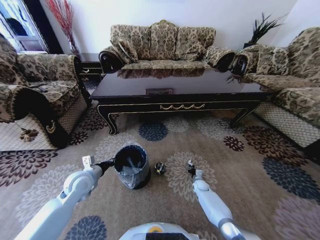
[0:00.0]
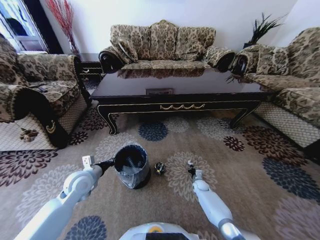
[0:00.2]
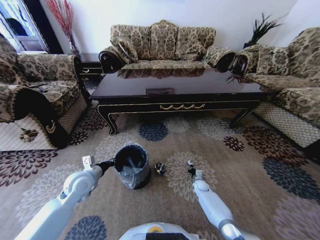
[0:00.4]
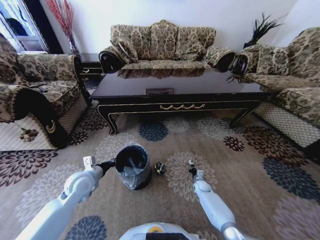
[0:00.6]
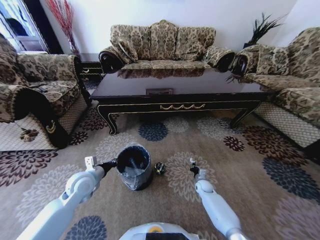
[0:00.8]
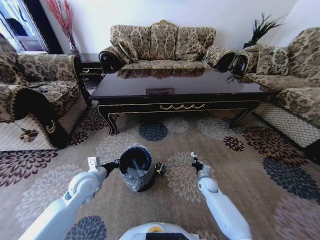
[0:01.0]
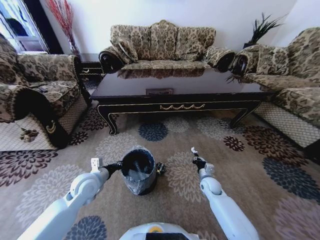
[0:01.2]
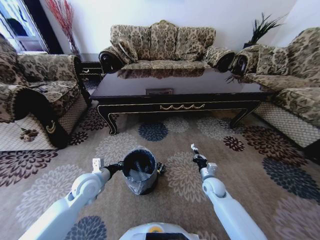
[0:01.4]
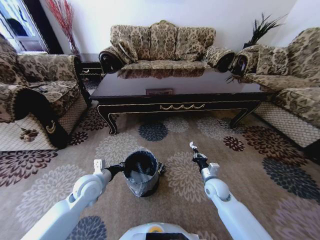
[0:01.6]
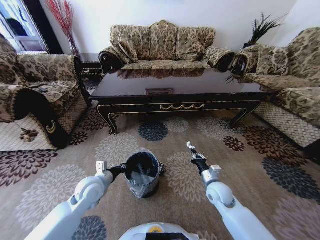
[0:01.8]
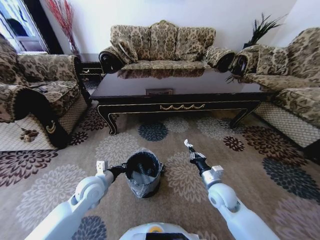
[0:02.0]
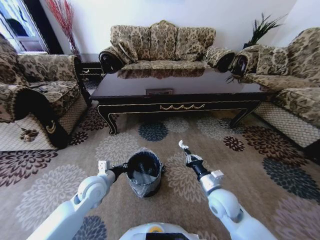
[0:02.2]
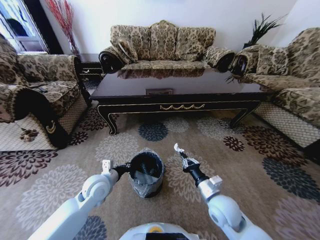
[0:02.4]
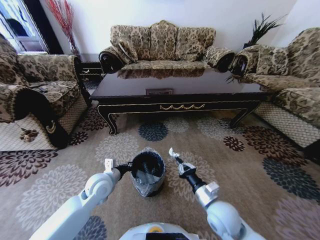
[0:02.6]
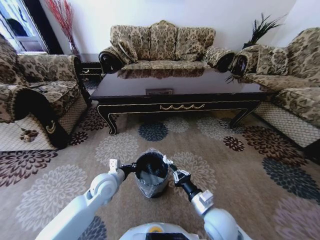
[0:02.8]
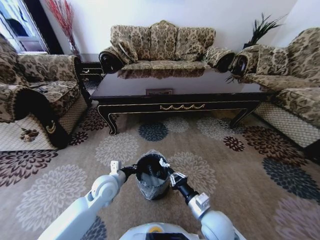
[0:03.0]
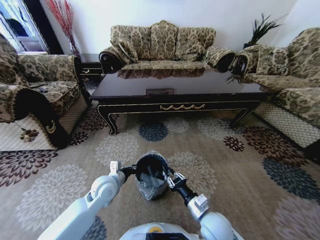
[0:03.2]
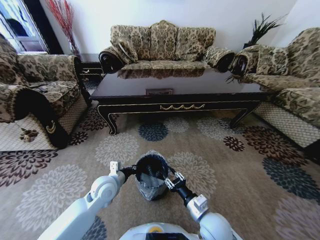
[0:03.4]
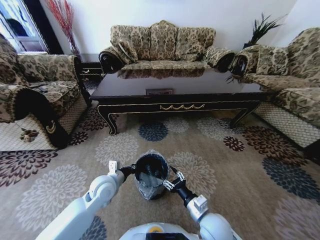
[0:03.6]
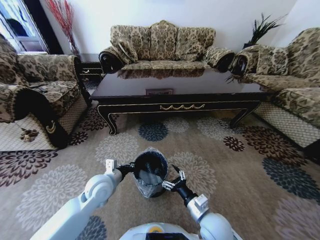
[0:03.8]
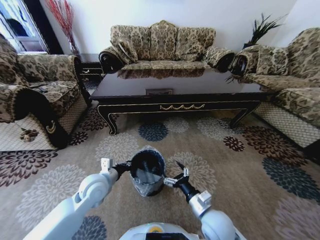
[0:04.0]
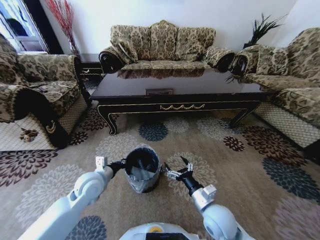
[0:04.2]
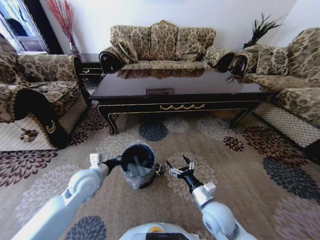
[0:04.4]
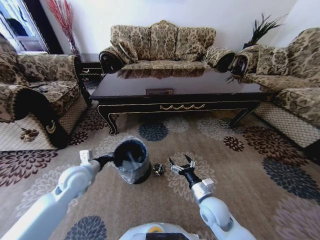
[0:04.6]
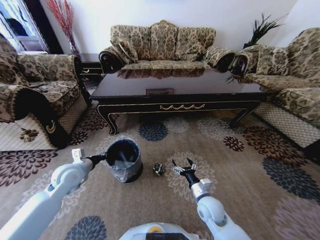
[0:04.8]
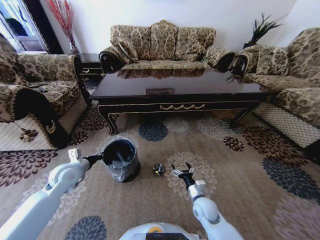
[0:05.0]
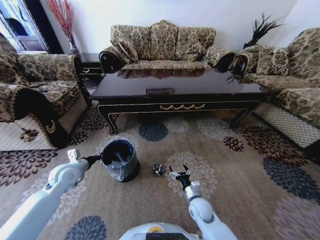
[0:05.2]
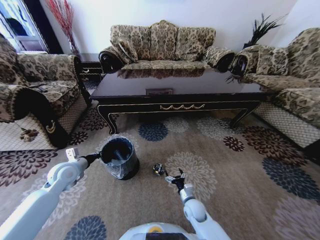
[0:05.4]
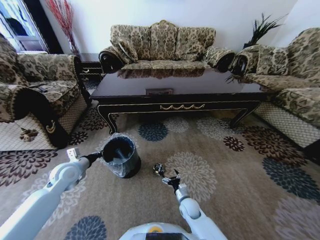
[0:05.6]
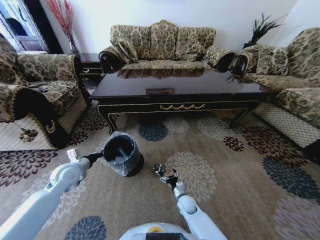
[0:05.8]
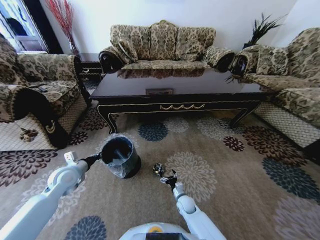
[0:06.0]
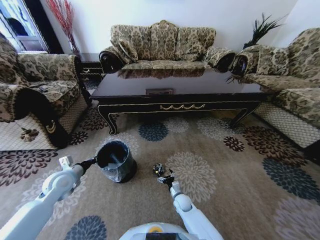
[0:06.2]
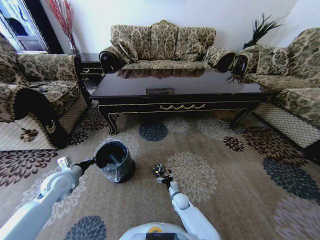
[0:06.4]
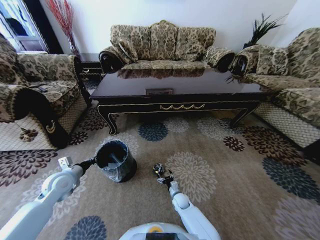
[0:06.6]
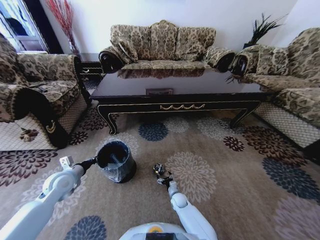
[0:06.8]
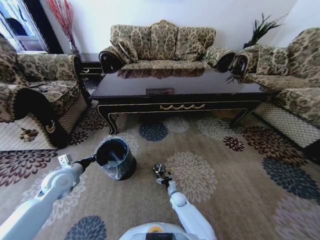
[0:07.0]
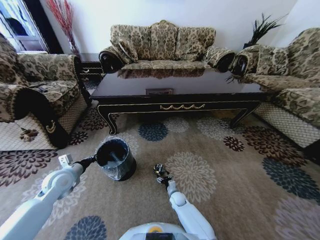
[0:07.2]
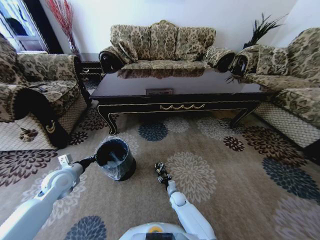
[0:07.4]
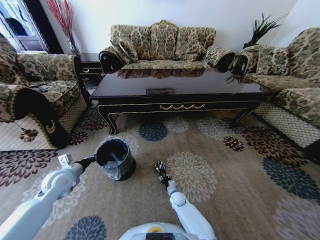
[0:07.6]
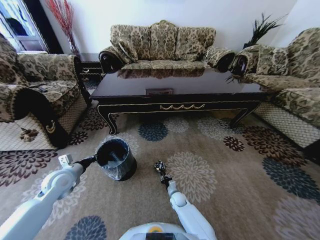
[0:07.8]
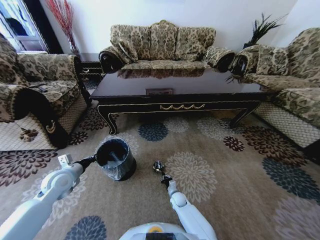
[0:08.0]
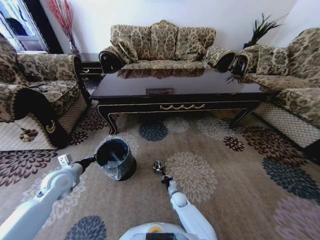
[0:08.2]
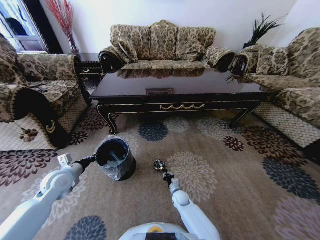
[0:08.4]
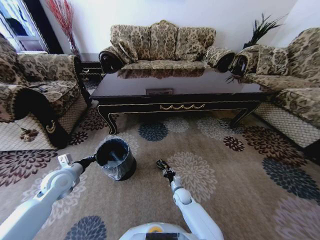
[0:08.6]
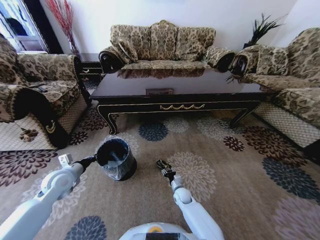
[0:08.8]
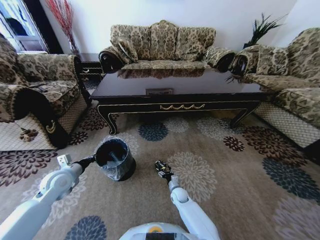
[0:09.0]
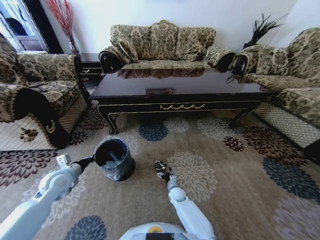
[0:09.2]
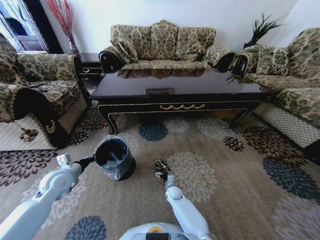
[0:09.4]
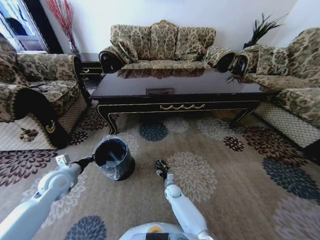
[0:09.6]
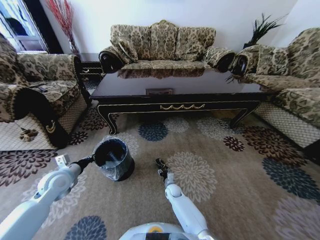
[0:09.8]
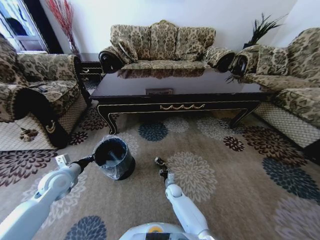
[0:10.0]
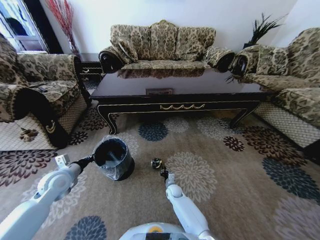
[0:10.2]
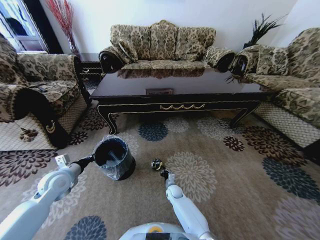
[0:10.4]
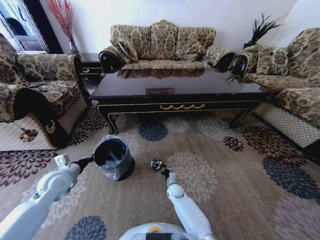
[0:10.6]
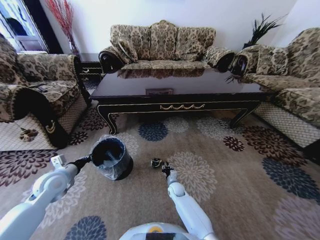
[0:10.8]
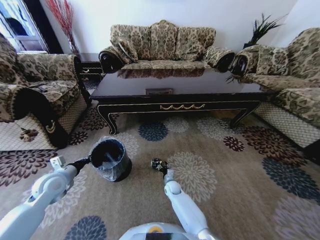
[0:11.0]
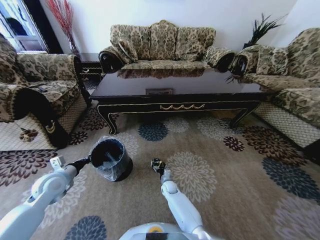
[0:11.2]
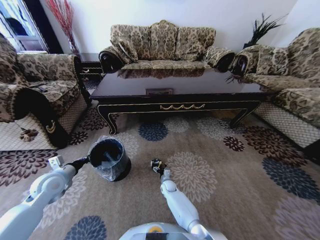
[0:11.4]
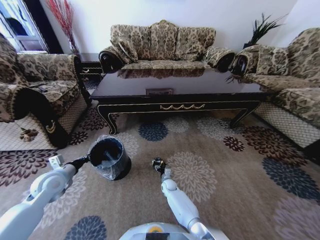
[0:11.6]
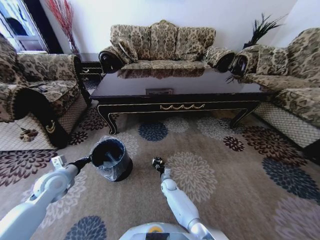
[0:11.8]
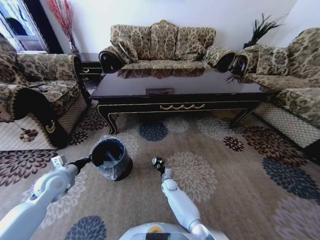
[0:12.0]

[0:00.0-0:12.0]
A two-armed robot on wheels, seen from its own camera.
Task of the whole recording: Move to the front of the table and pick up the trash from the floor, then place it into the trash bin.
0:00.0 to 0:01.6: The right gripper heads upward and backward, covering roughly 20 cm.
0:01.6 to 0:03.0: The right gripper is displaced backward and to the left by roughly 15 cm. The left gripper is displaced to the right by about 5 cm.
0:03.0 to 0:04.4: The right gripper opens, while the left gripper travels to the left by roughly 5 cm.
0:04.4 to 0:06.0: The right gripper goes roughly 25 cm downward and forward. The left gripper travels to the left by some 10 cm.
0:06.0 to 0:07.6: The right gripper goes about 5 cm downward, and closes.
0:07.6 to 0:09.0: The right gripper closes, then reopens.
0:09.0 to 0:10.4: The right gripper closes its fingers.
0:10.4 to 0:12.0: The right gripper opens, then closes once more.

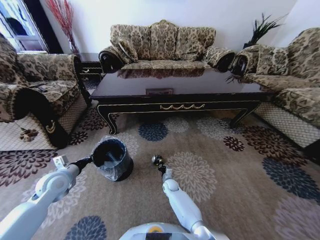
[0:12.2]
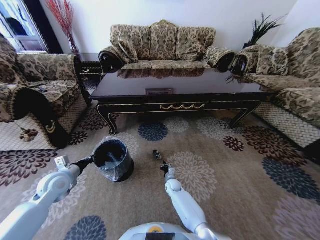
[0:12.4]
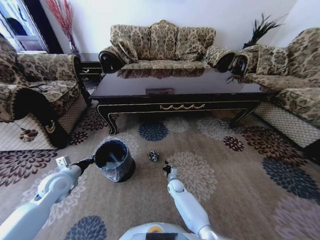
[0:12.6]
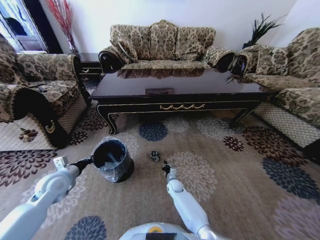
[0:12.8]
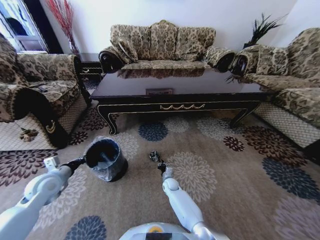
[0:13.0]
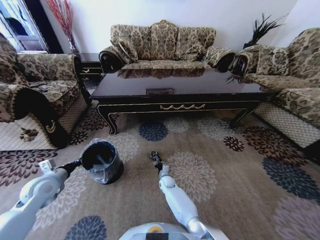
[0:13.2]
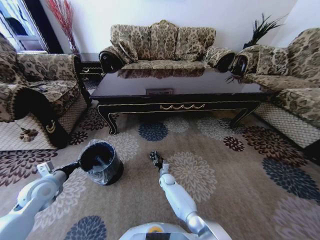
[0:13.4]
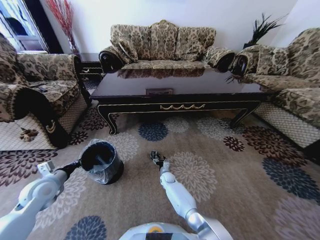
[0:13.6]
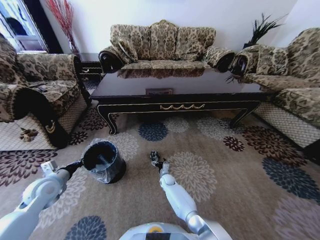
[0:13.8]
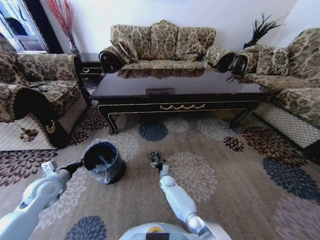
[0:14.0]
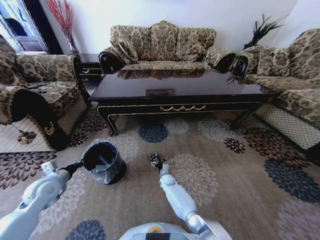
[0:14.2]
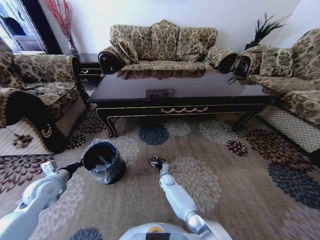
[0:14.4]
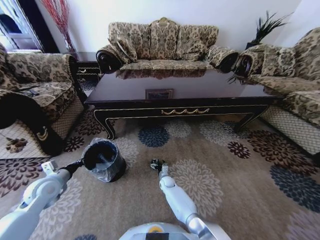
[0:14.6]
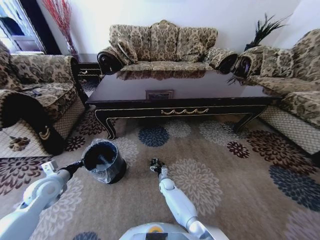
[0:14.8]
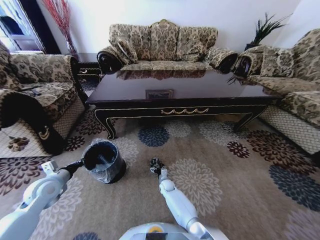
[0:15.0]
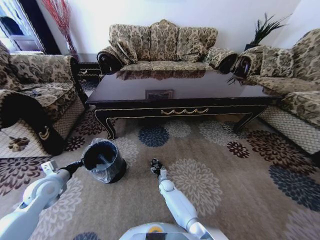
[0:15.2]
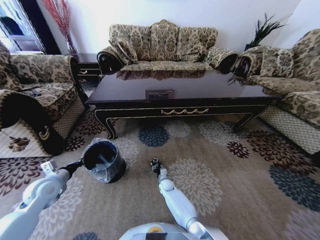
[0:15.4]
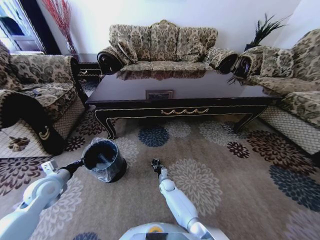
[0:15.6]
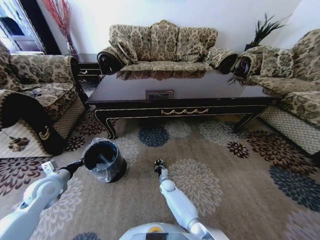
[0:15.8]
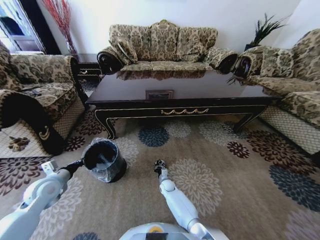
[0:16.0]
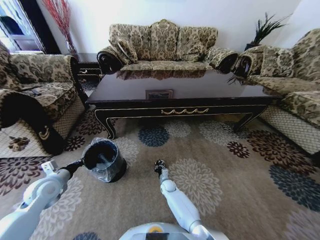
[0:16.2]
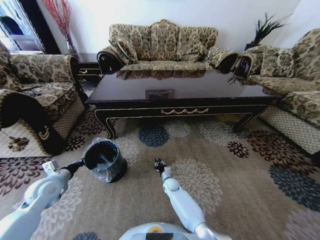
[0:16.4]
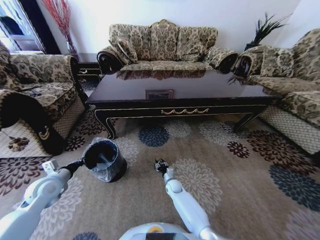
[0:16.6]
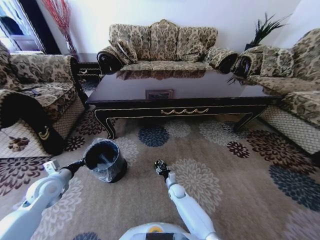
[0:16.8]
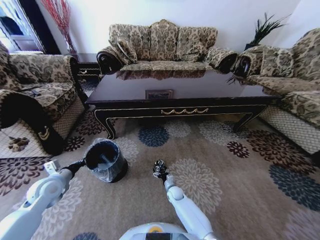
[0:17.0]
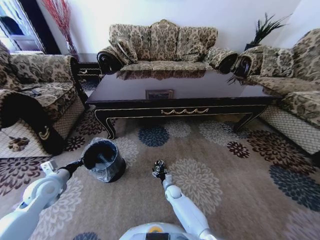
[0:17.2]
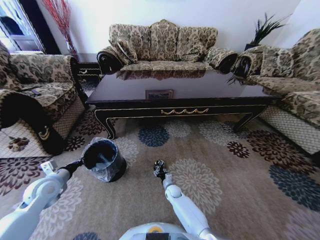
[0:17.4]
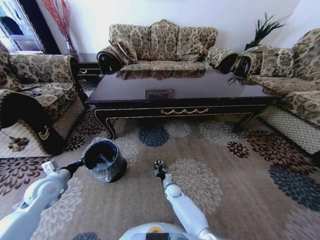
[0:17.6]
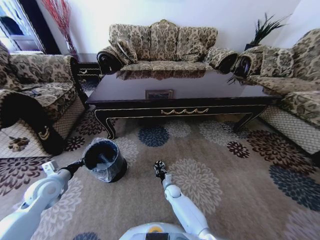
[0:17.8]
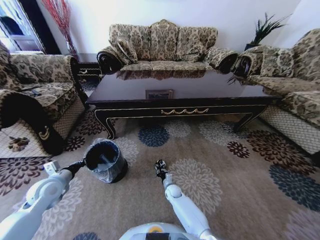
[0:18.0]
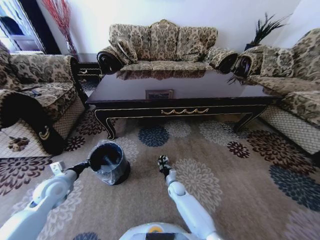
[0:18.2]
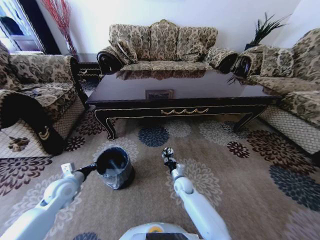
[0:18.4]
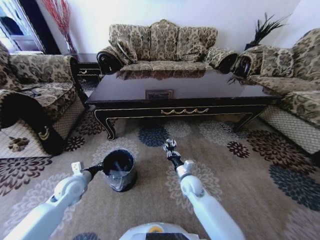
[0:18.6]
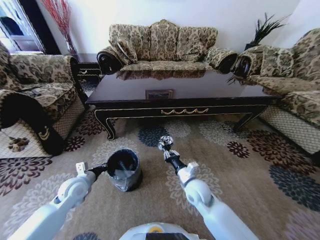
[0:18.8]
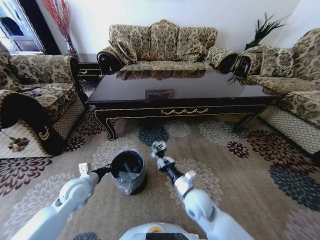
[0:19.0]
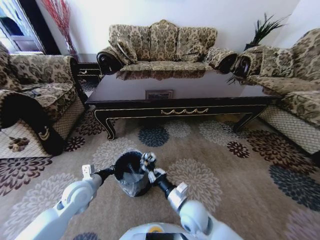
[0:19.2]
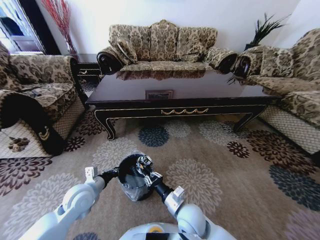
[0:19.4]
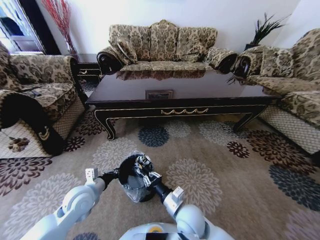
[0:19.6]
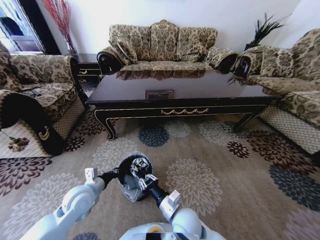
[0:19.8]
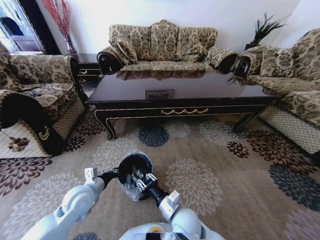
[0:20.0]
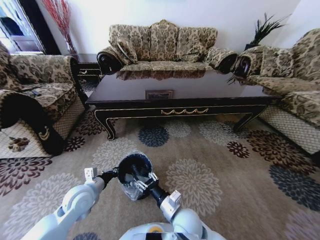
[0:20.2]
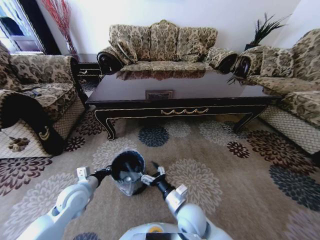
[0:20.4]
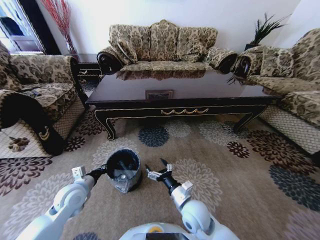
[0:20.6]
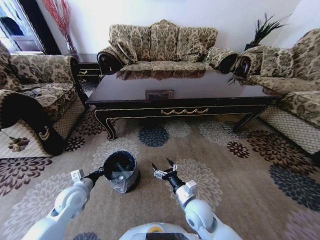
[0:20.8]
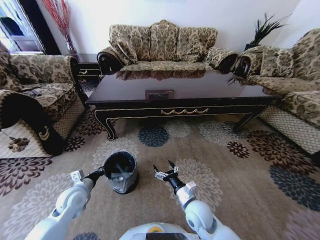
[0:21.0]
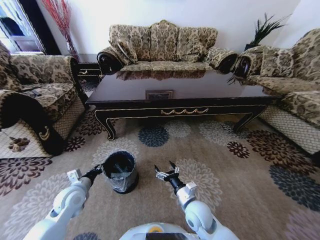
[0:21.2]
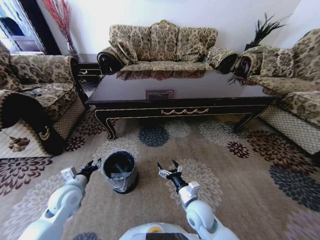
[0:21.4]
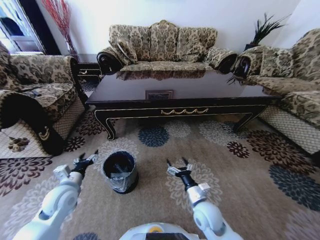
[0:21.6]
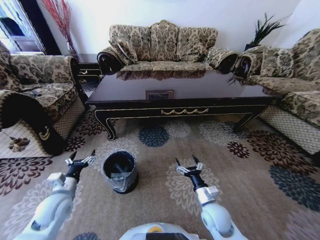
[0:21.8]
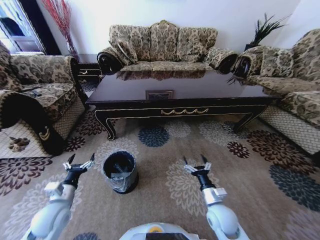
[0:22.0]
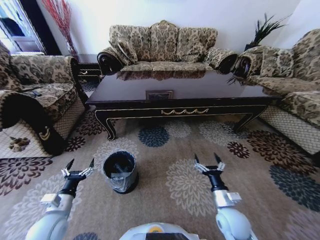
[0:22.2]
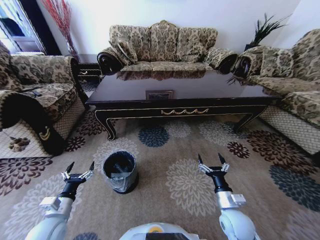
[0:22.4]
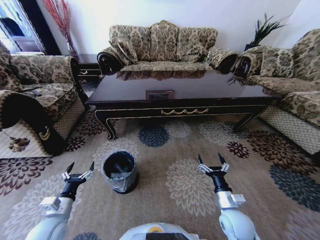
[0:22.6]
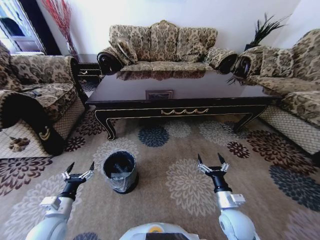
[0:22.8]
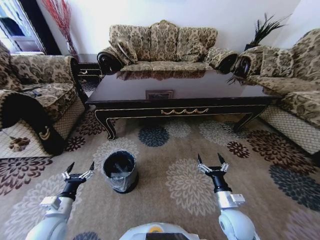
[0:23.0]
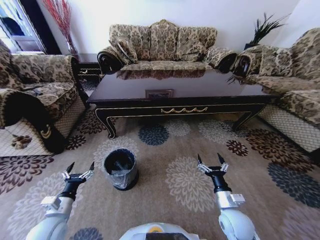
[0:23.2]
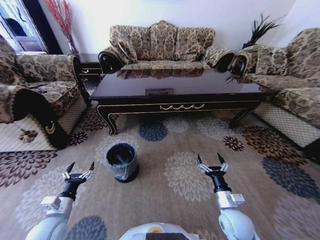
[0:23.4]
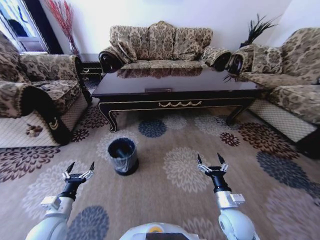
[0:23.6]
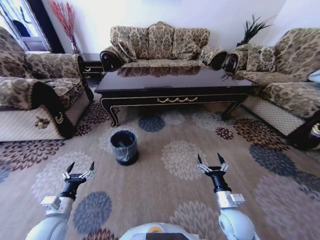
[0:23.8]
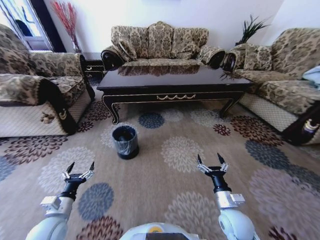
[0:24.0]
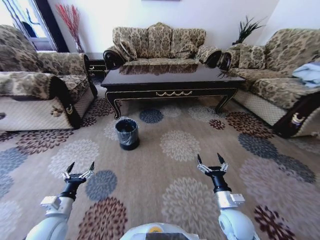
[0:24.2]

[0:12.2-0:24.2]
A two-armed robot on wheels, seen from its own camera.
Task of the whole recording: Move to the front of the table and pick up the trash from the floor, then place it into the trash bin.
0:12.2 to 0:13.8: The right gripper opens its fingers.
0:15.2 to 0:16.6: The right gripper moves some 5 cm, and closes, then reopens.
0:16.6 to 0:18.2: The right gripper opens and closes again.
0:18.2 to 0:19.8: The right gripper moves upward and backward, approximately 30 cm, while the left gripper shifts roughly 10 cm to the right.
0:19.8 to 0:21.2: The left gripper goes about 5 cm to the left; the right gripper shifts roughly 5 cm to the right, and opens.
0:21.2 to 0:22.6: The right gripper is displaced to the right by about 15 cm. Meanwhile the left gripper heads backward, covering some 10 cm, and opens its fingers.
